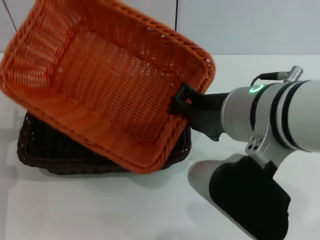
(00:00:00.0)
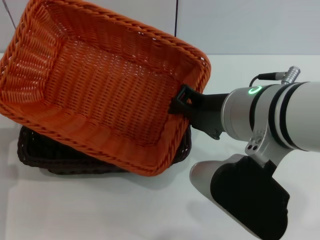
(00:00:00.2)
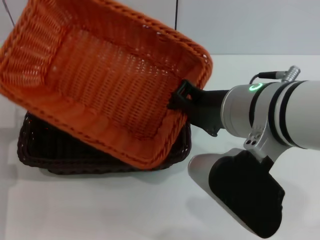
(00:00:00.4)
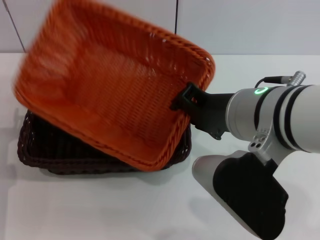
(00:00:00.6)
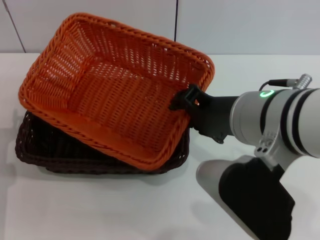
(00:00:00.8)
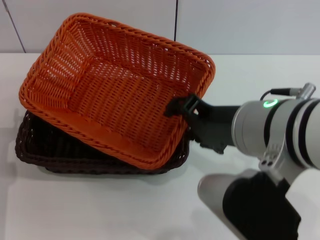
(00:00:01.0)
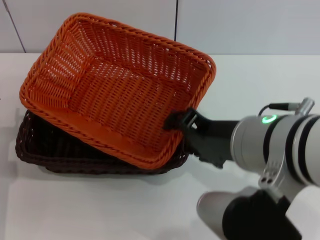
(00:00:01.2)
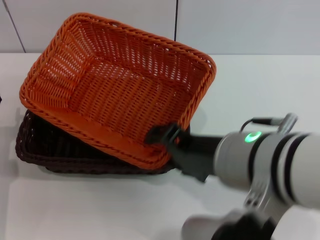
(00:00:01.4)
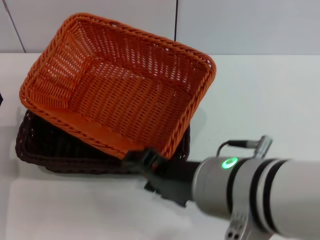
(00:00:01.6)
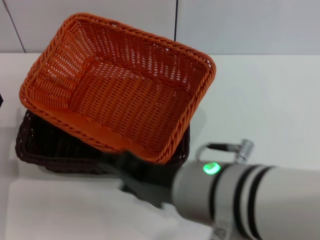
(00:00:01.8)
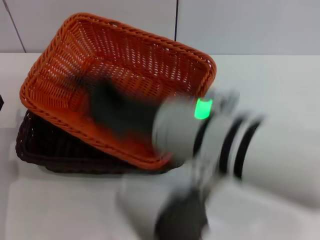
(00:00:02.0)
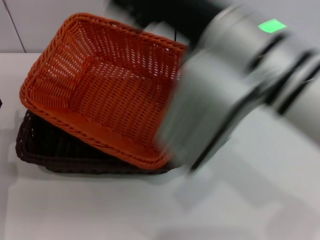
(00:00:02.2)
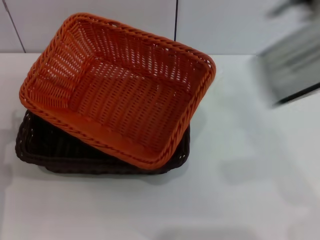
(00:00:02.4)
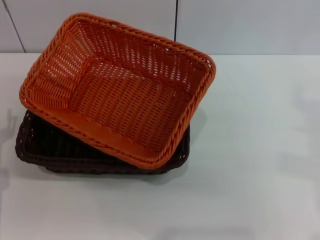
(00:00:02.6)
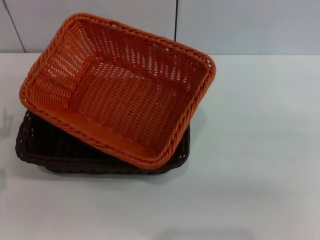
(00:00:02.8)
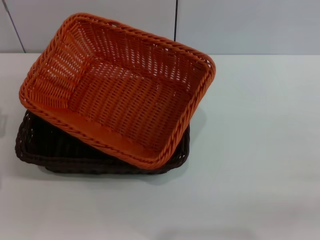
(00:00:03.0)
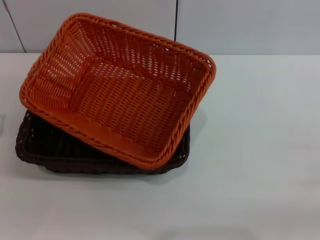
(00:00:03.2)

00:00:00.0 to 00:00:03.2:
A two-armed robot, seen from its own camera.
00:00:00.0 to 00:00:01.6: The right gripper goes roughly 5 cm backward, and opens up.
00:00:01.6 to 00:00:03.2: The right gripper travels to the right and downward by approximately 30 cm.
